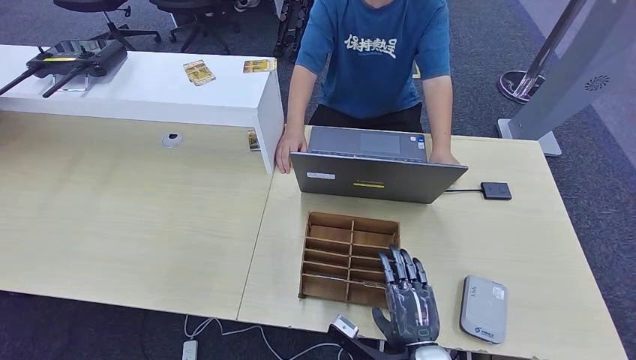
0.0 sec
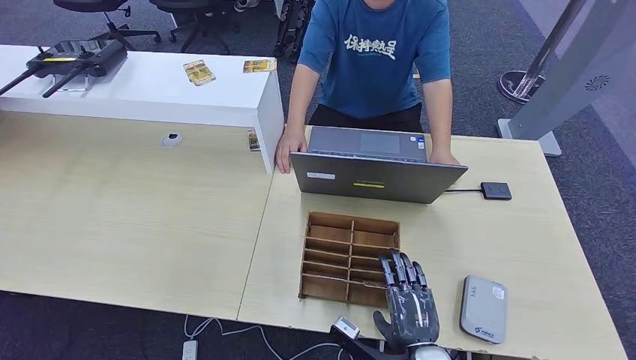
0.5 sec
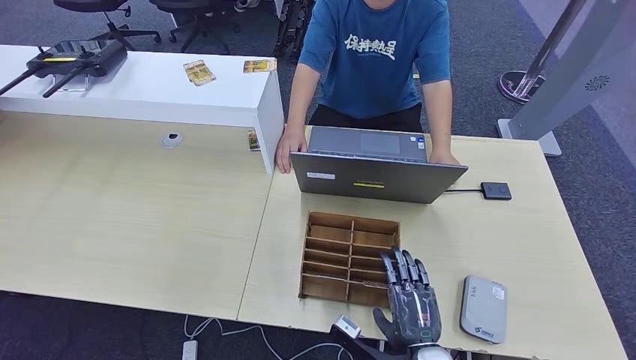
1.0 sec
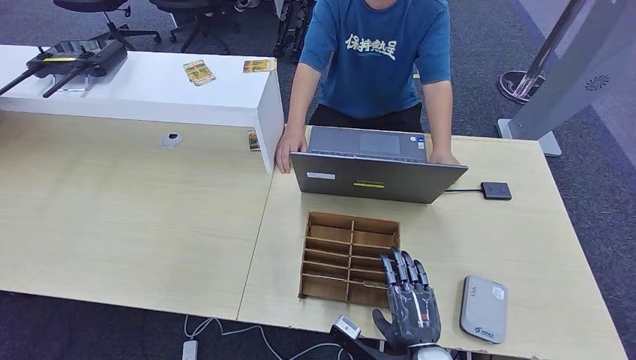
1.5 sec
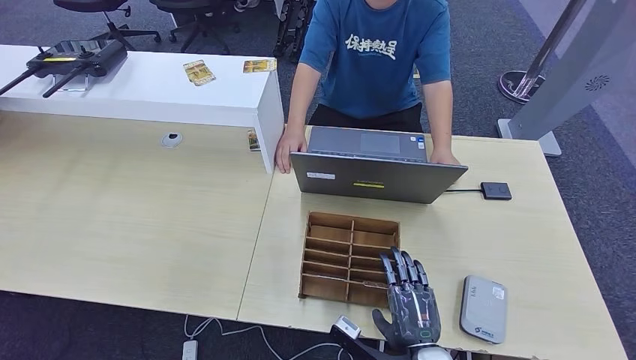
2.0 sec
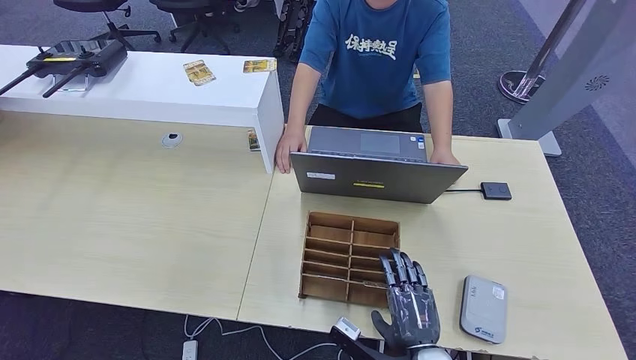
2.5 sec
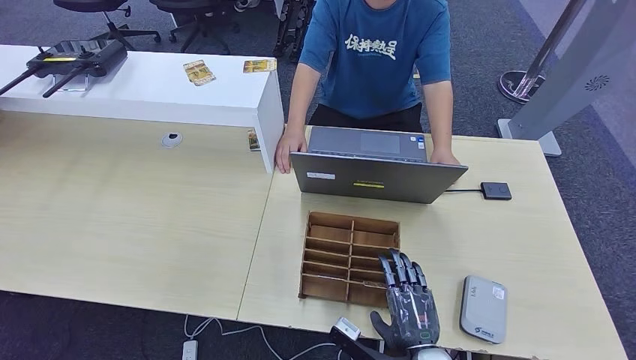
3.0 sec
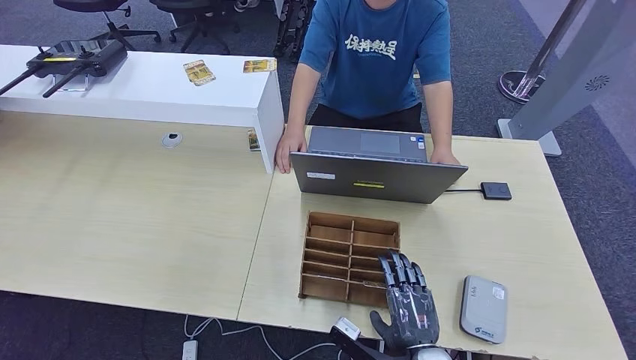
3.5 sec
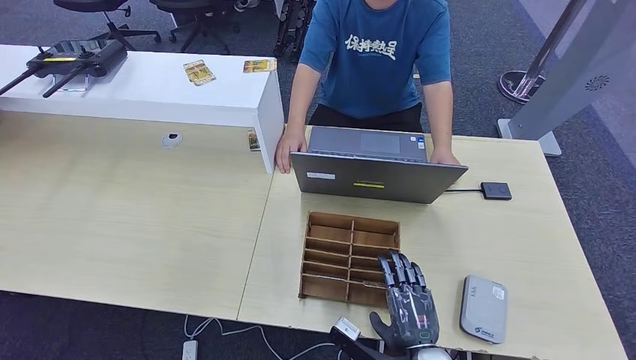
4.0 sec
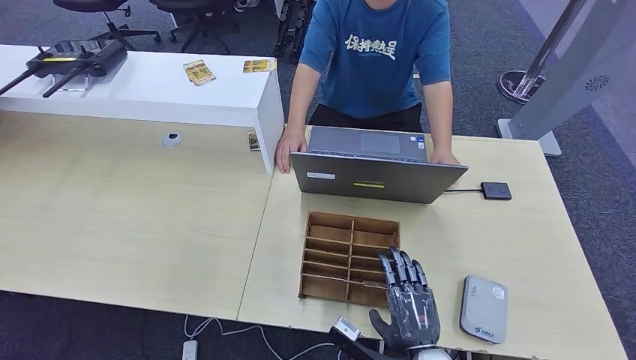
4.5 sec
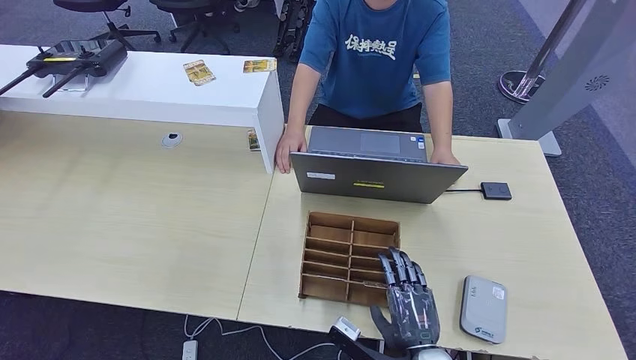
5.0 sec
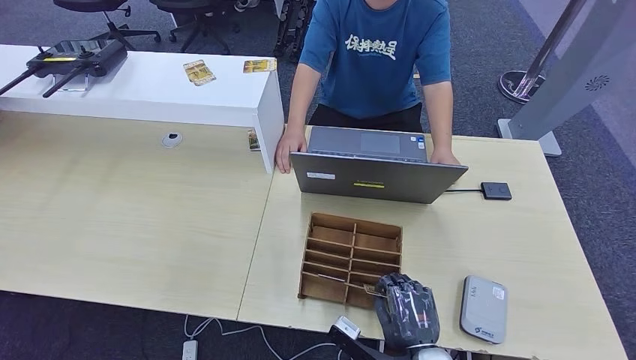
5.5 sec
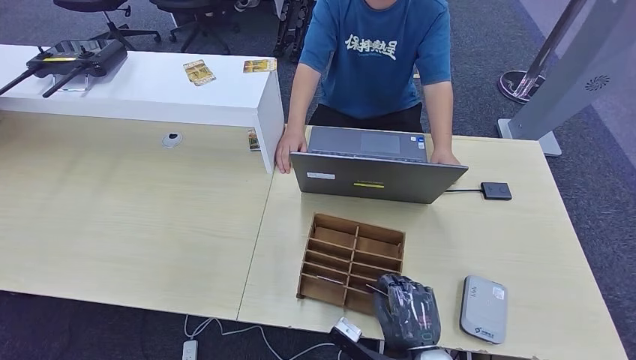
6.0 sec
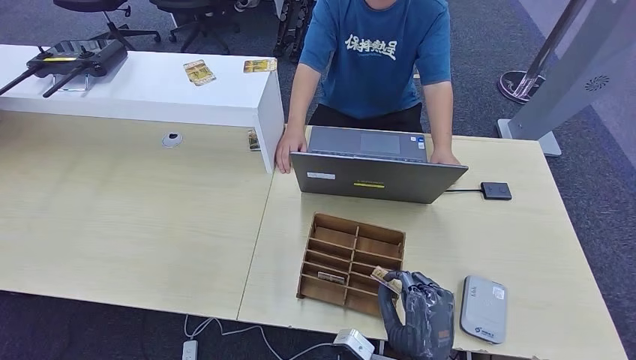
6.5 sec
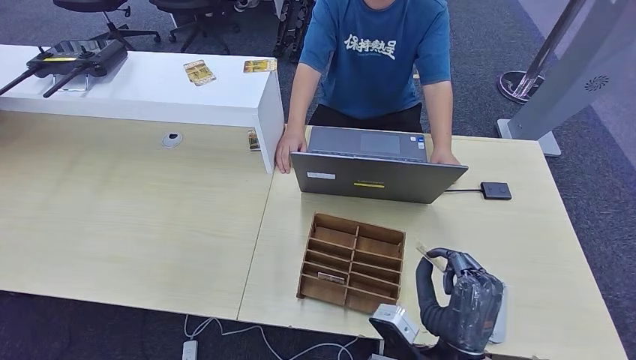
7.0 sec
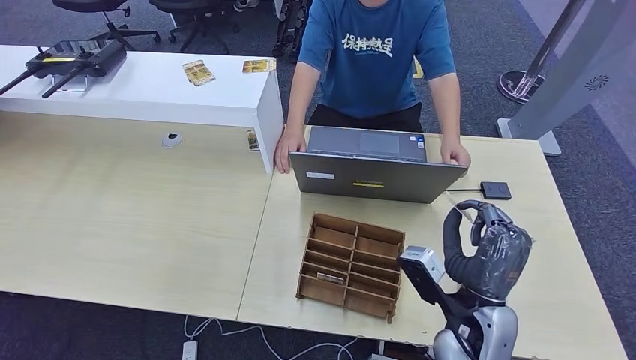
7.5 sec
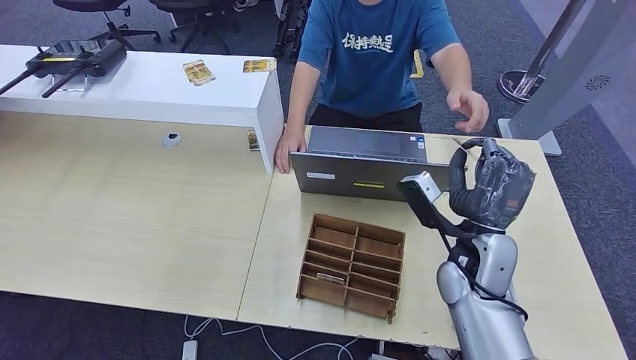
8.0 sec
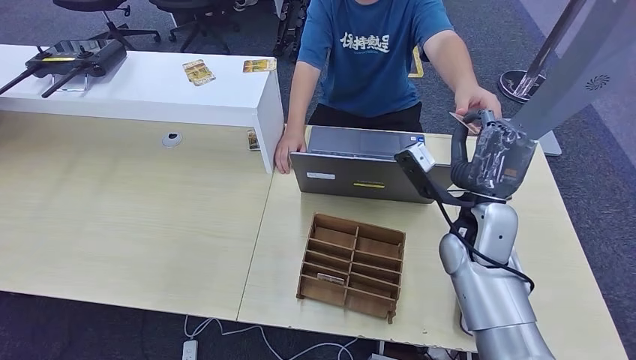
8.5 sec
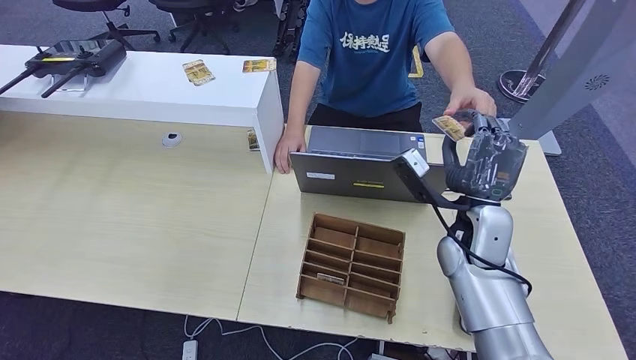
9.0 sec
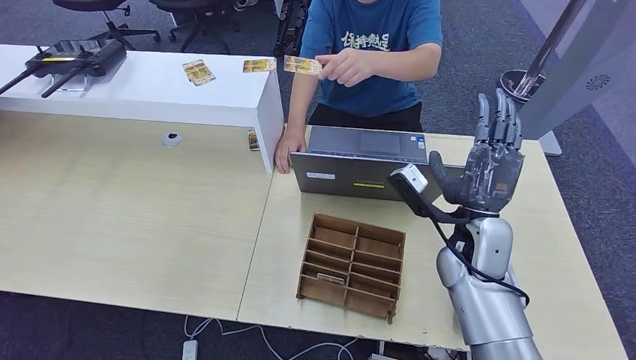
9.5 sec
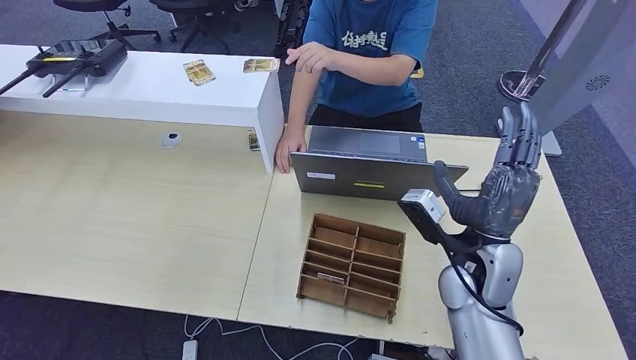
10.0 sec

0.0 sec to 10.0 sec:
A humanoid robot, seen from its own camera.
Step, 5.0 sec to 7.5 sec: Pick up the room key from the key card box.
Step, 8.0 sec to 9.5 sec: Hand the room key to the person.
0.0 sec to 4.0 sec: Neither hand changes place.
4.0 sec to 6.0 sec: The hands stay close to where they were, moving slightly.
6.0 sec to 8.0 sec: The right hand goes some 20 cm forward and upward.
8.0 sec to 10.0 sec: The hands stay close to where they were, moving slightly.
